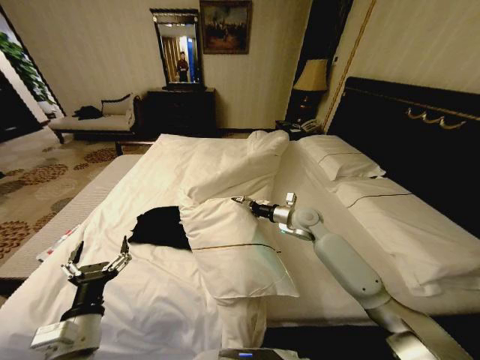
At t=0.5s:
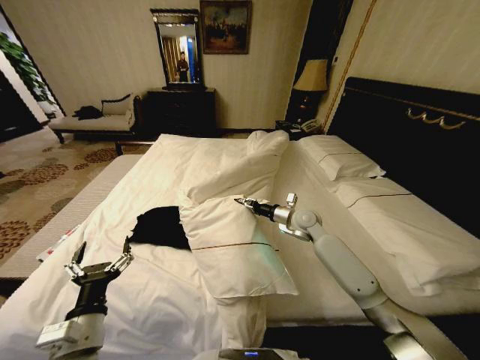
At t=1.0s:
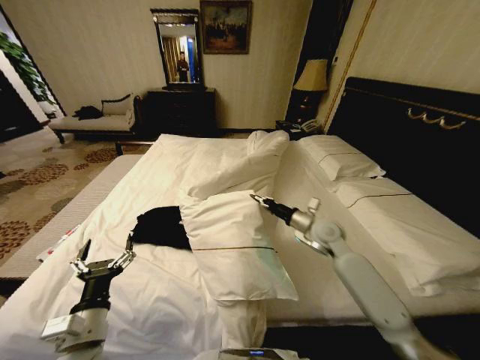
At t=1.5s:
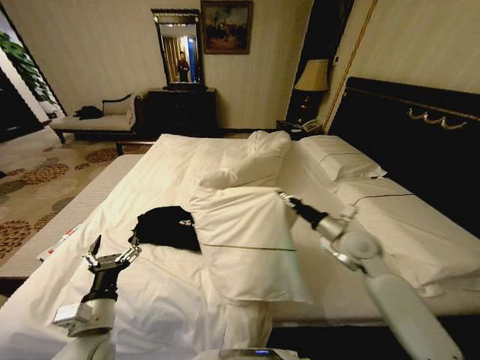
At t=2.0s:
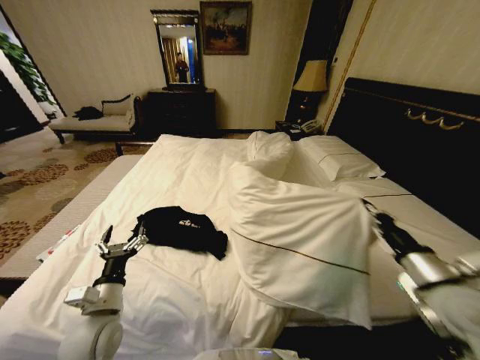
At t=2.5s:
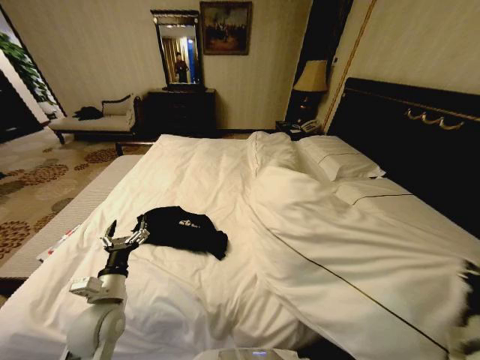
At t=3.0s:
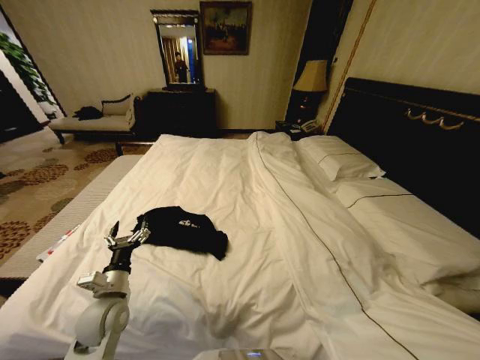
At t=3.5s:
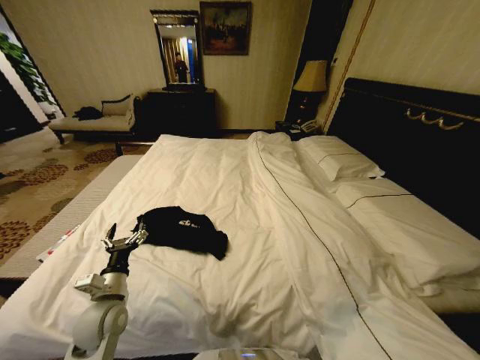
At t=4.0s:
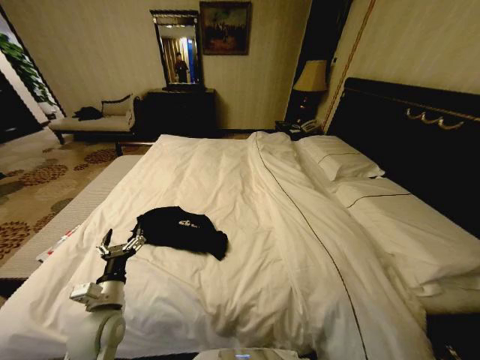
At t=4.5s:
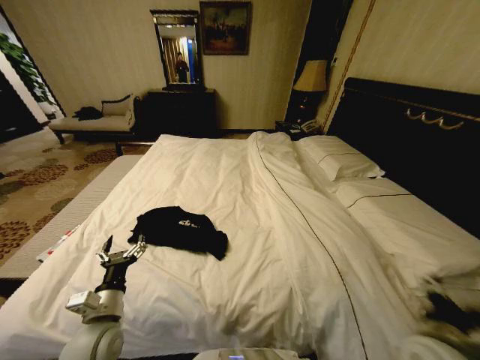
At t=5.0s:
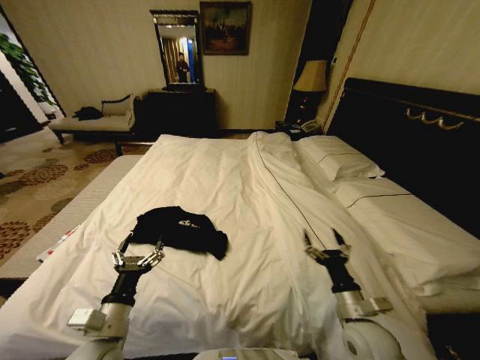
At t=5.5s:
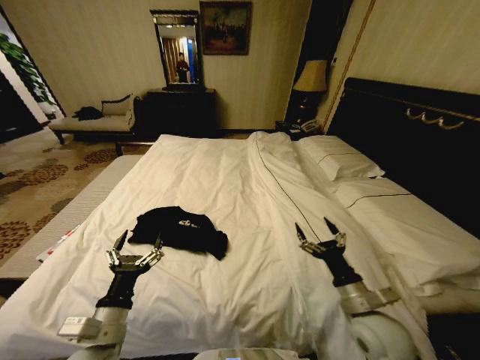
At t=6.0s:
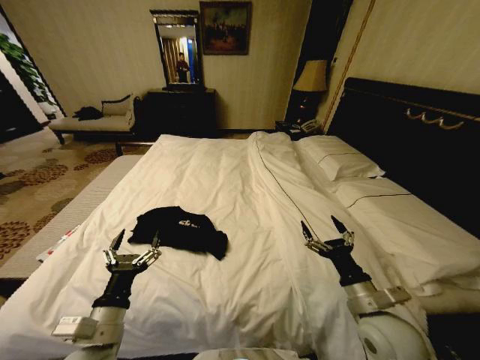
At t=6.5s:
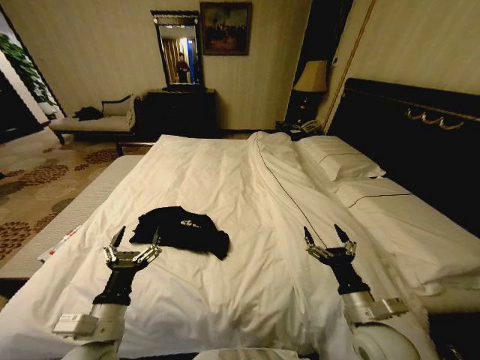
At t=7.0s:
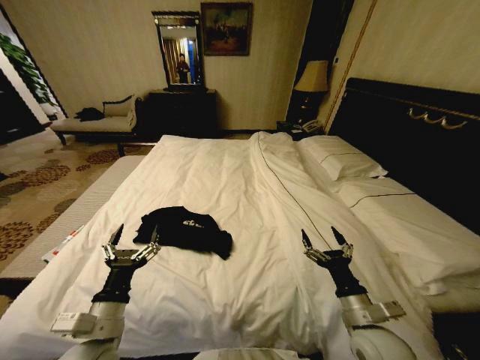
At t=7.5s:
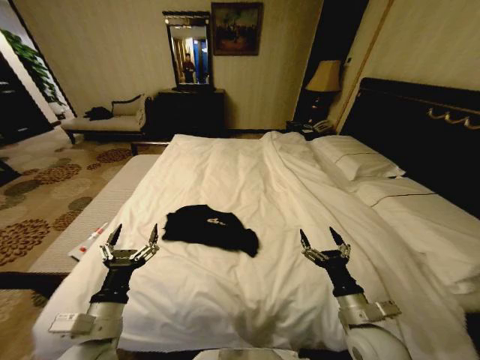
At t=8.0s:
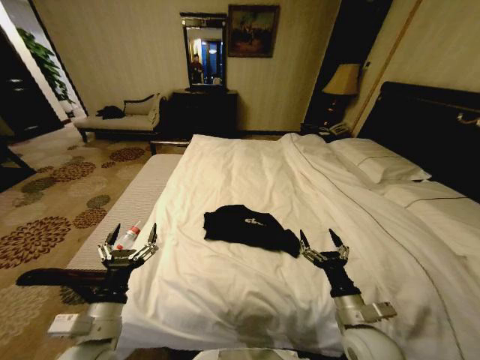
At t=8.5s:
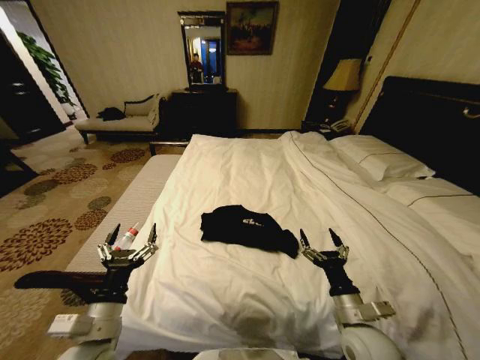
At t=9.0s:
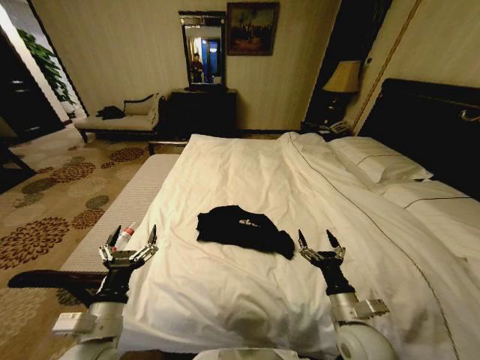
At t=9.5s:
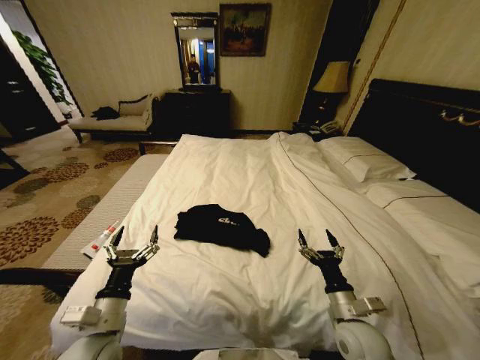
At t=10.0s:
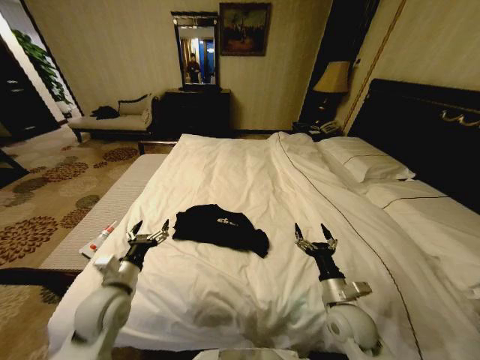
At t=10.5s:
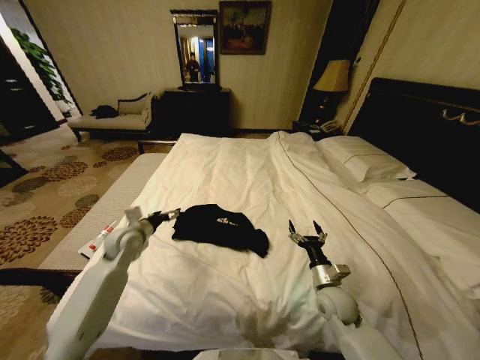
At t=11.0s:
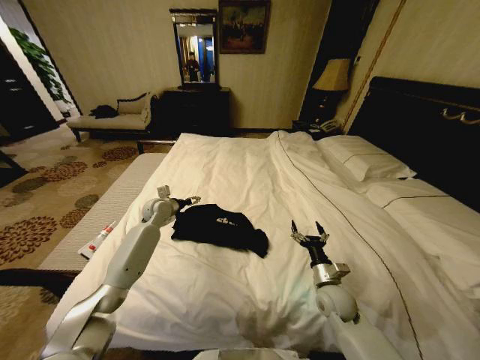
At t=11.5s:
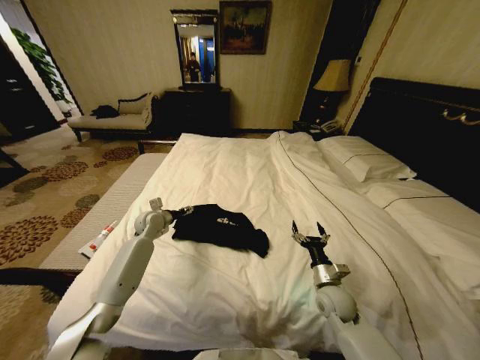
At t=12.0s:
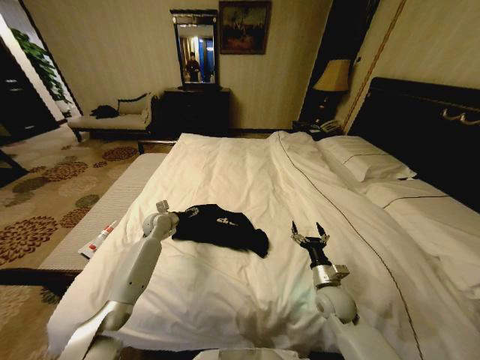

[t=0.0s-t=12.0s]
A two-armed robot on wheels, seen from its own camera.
Task of the whole recording: Fold the clothes on the bed.
t=0.0s to t=2.0s: The left gripper heads forward, covering roughly 5 cm; the right gripper travels backward and to the right by approximately 30 cm, and closes its fingers.
t=2.0s to t=4.0s: The right gripper is displaced downward and backward by some 20 cm, and opens.
t=4.0s to t=6.0s: The left gripper shifts roughly 10 cm backward and upward. The right gripper shifts some 15 cm to the left, forward and upward, and opens up.
t=8.0s to t=10.0s: The left gripper travels forward by some 10 cm. The right gripper moves some 5 cm.
t=10.0s to t=12.0s: The right gripper heads forward, covering about 5 cm, while the left gripper shifts some 30 cm forward.

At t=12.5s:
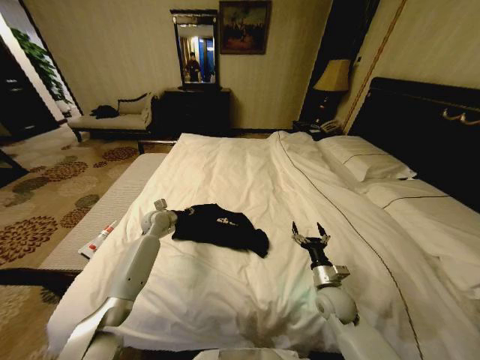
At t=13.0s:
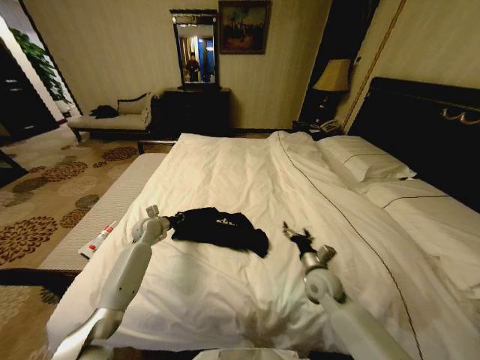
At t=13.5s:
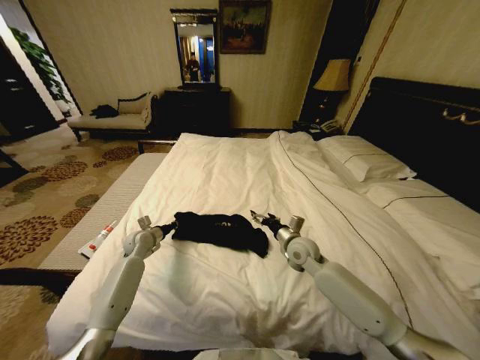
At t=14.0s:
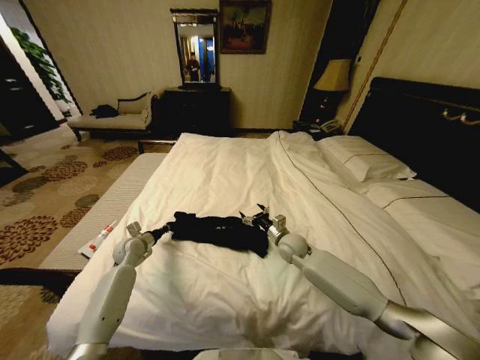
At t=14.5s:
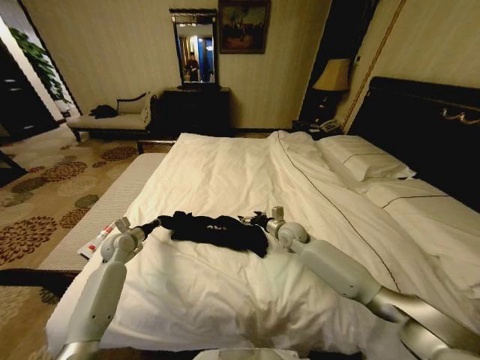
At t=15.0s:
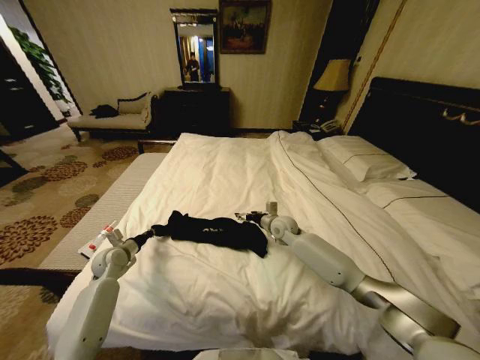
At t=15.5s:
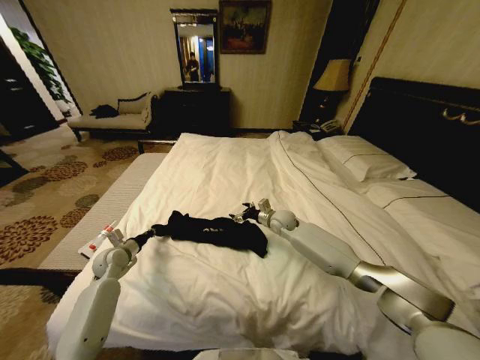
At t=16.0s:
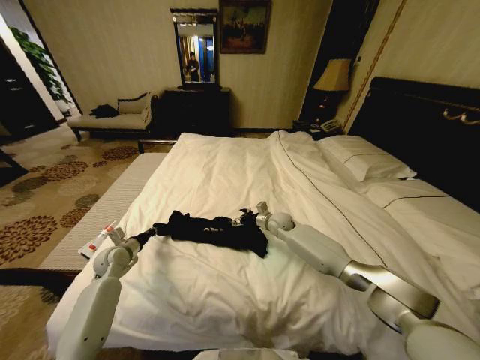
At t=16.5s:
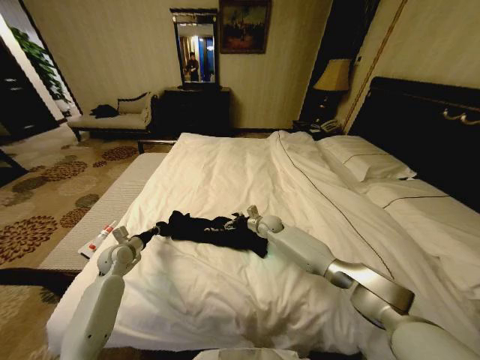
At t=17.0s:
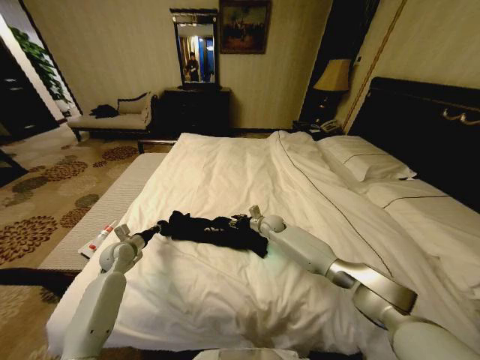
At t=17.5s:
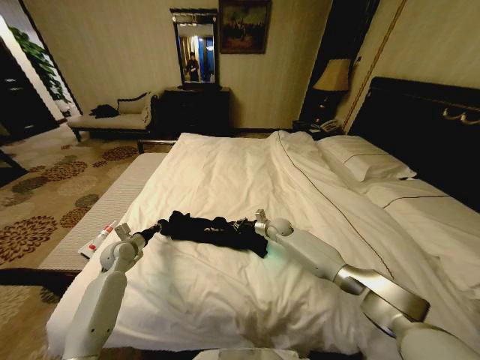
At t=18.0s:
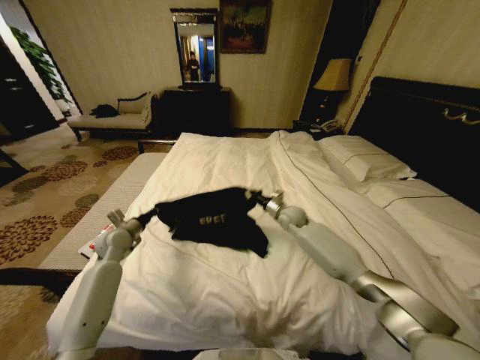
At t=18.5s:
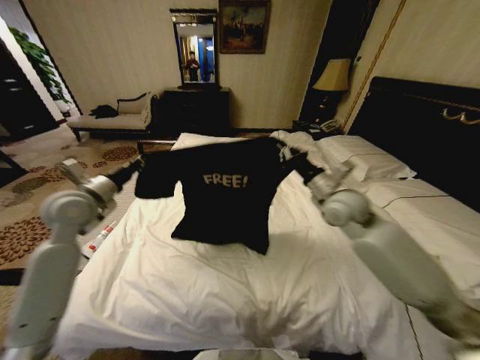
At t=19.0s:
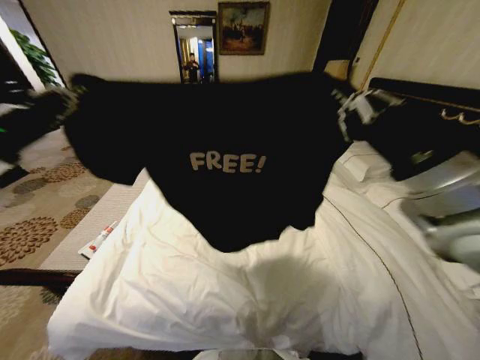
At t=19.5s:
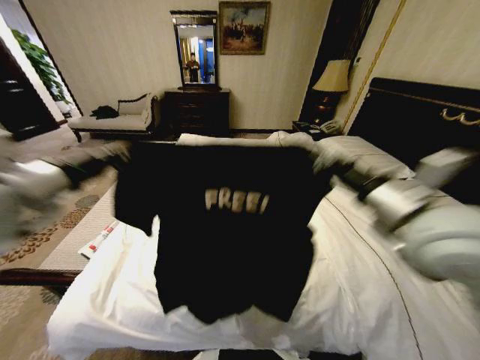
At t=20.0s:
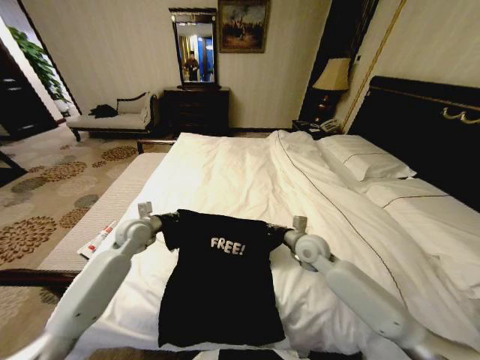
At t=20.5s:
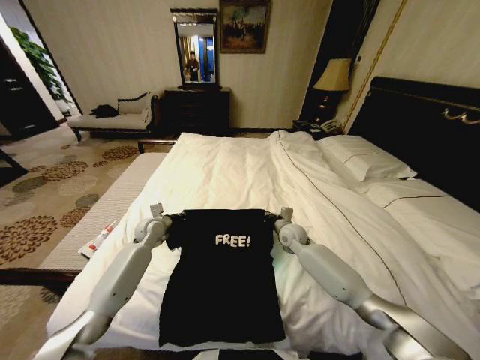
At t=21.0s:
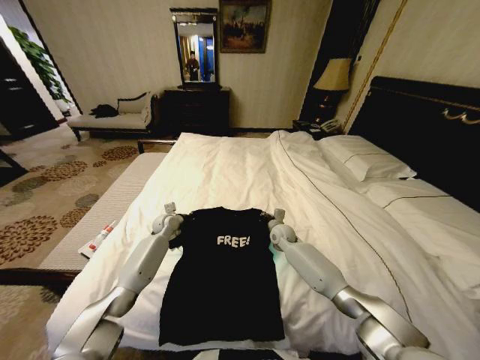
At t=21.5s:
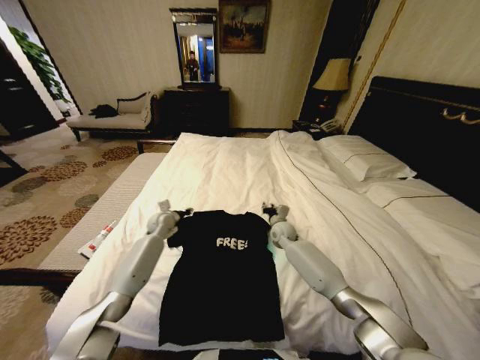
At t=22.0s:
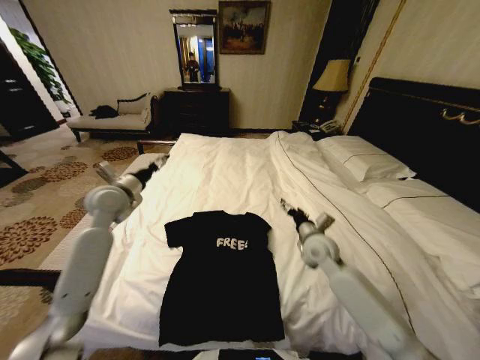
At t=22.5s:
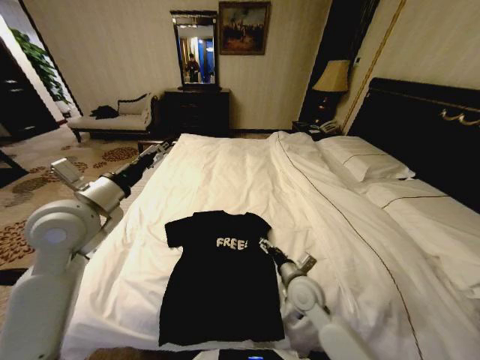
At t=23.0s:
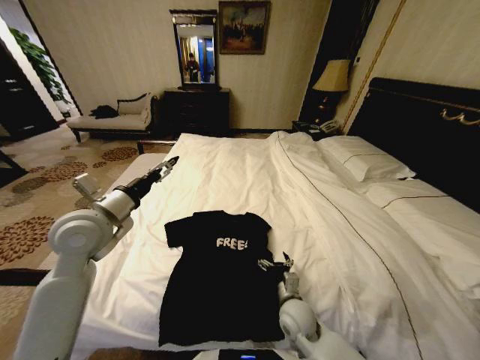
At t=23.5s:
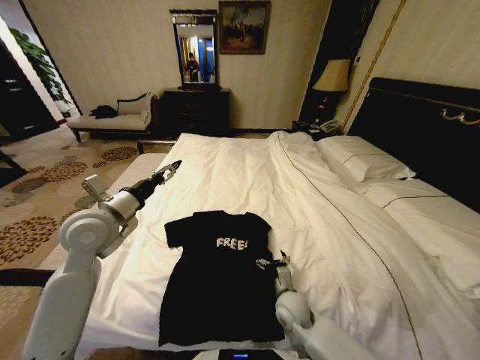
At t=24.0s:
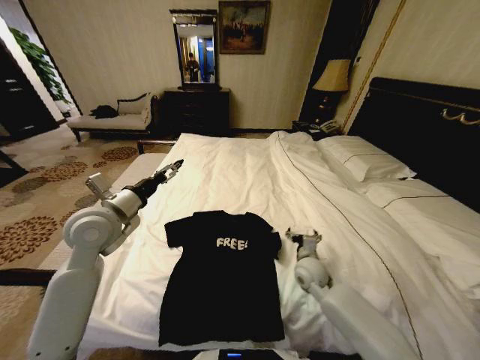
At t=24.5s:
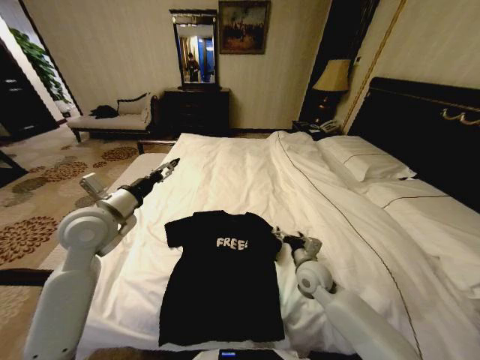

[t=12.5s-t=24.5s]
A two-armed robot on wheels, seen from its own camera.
Task of the whole recording: Fold the clothes on the bed.
t=12.5s to t=14.5s: The left gripper is displaced to the left and backward by approximately 15 cm. The right gripper travels forward and to the left by some 20 cm.
t=14.5s to t=16.5s: The right gripper moves forward and to the left, roughly 10 cm.
t=16.5s to t=18.5s: The right gripper is displaced upward, backward and to the right by approximately 30 cm, and closes. The left gripper moves upward, approximately 25 cm.
t=18.5s to t=20.5s: The right gripper is displaced downward by roughly 25 cm. The left gripper travels downward and forward by some 25 cm.
t=20.5s to t=22.5s: The right gripper moves backward, some 20 cm, and opens its fingers, while the left gripper heads upward and backward, covering about 30 cm, and opens.
t=22.5s to t=24.5s: The right gripper is displaced to the right and forward by some 5 cm.

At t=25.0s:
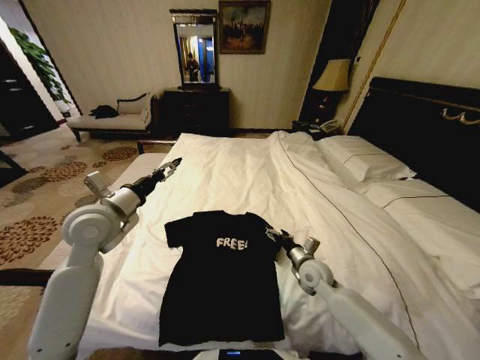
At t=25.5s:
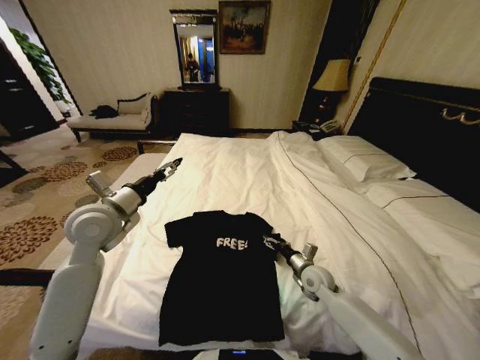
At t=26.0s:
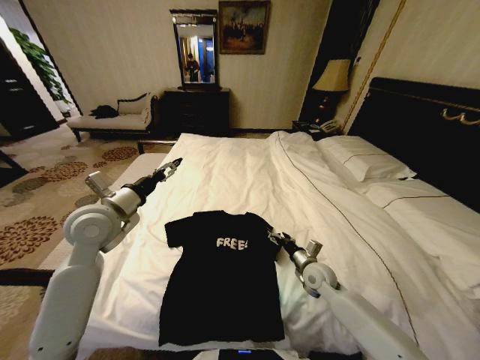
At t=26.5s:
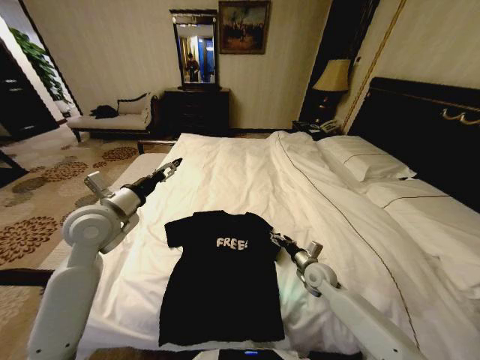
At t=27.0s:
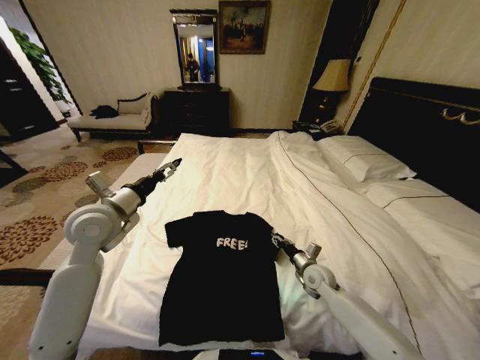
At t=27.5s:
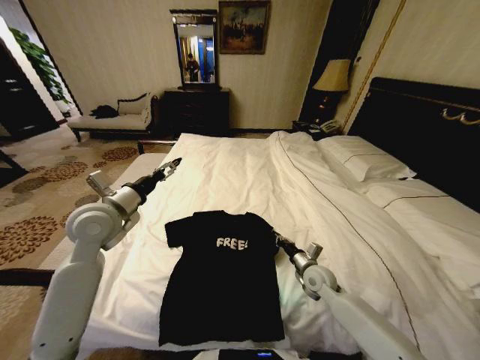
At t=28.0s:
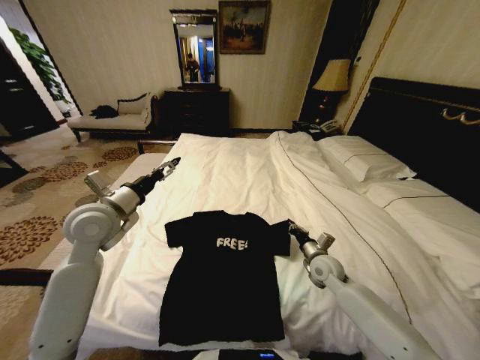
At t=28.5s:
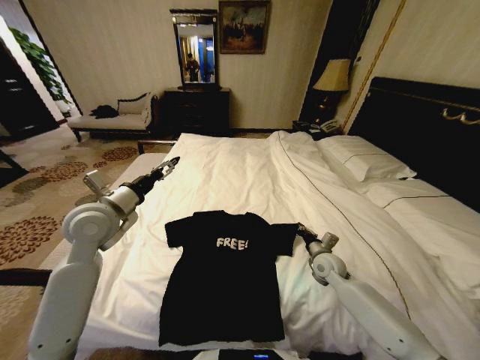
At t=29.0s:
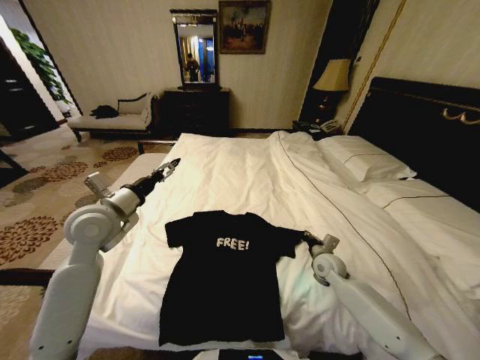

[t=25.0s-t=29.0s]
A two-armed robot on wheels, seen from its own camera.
Task of the whole recording: Fold the clothes on the bed.
t=25.0s to t=27.0s: The right gripper changes place by roughly 5 cm, and closes up.
t=27.0s to t=29.0s: The right gripper shifts by about 5 cm, and closes its fingers.
